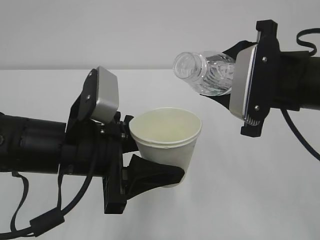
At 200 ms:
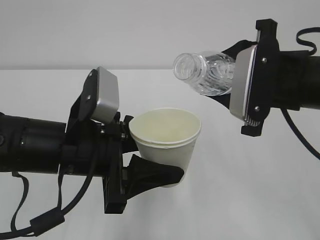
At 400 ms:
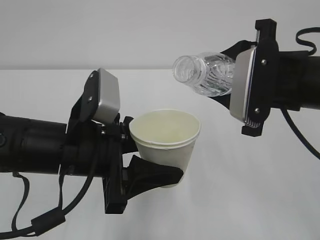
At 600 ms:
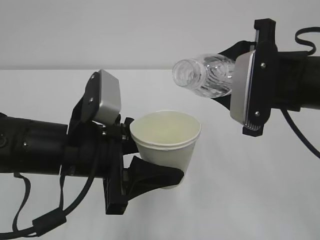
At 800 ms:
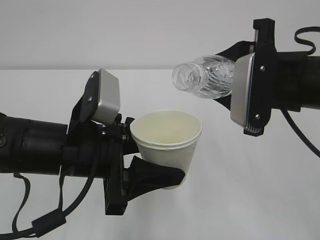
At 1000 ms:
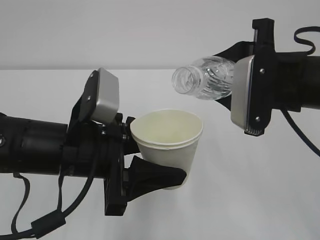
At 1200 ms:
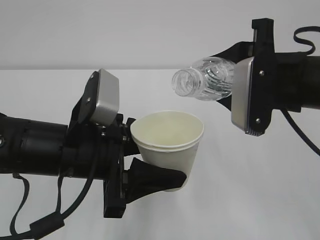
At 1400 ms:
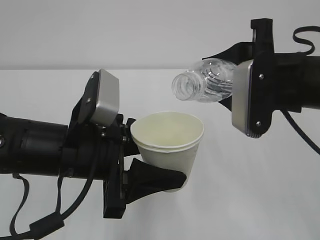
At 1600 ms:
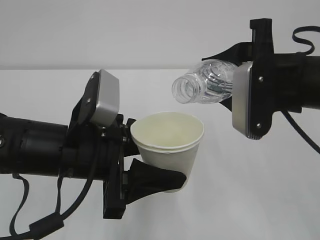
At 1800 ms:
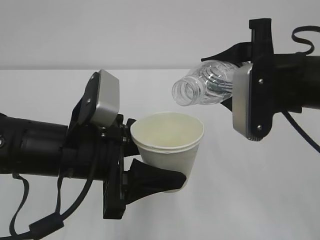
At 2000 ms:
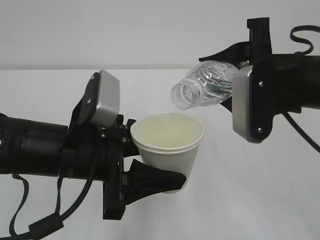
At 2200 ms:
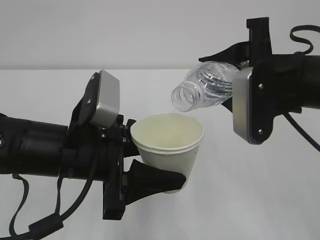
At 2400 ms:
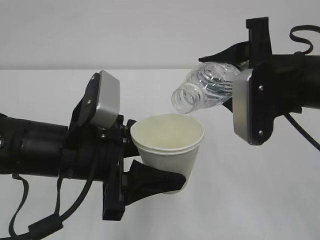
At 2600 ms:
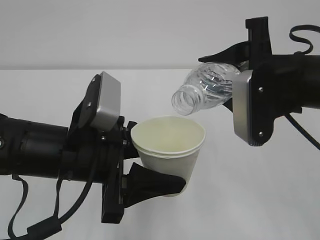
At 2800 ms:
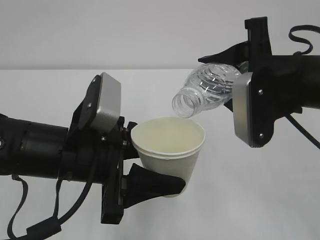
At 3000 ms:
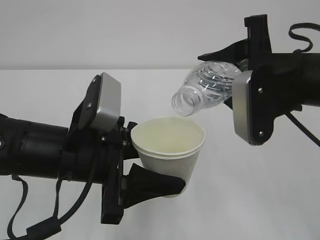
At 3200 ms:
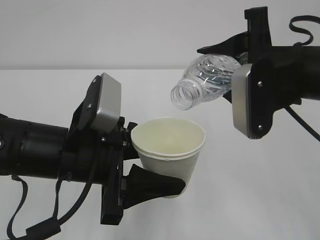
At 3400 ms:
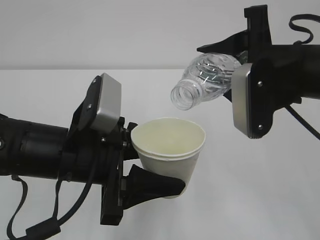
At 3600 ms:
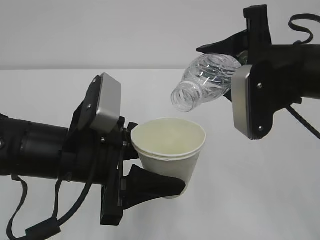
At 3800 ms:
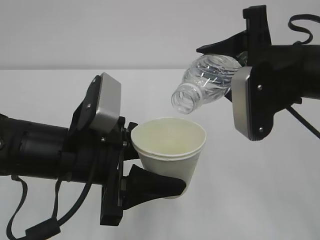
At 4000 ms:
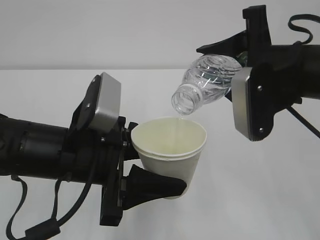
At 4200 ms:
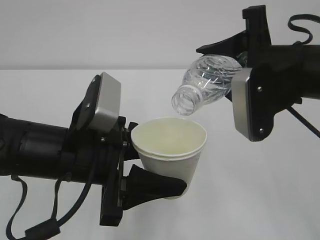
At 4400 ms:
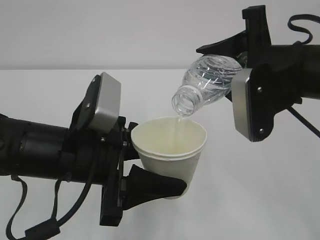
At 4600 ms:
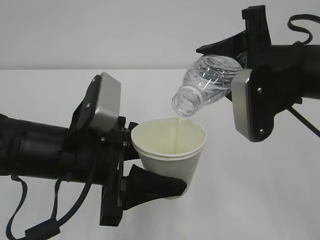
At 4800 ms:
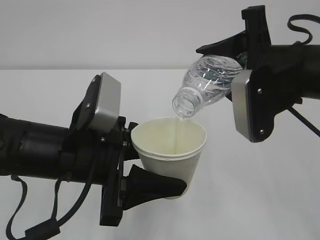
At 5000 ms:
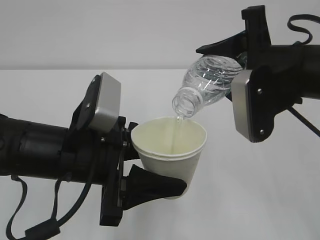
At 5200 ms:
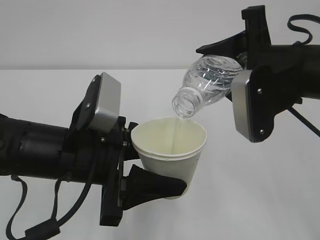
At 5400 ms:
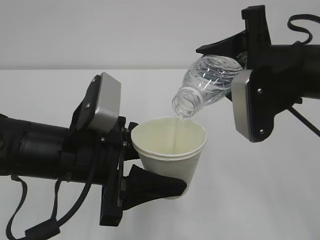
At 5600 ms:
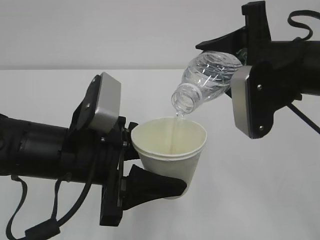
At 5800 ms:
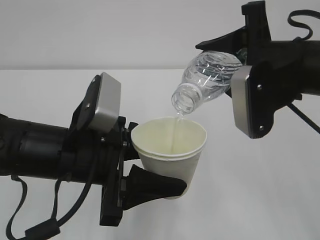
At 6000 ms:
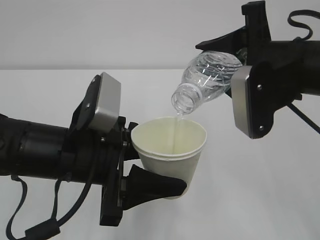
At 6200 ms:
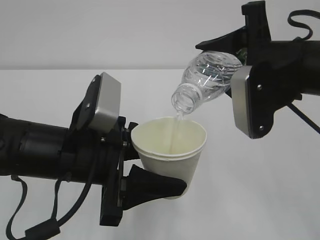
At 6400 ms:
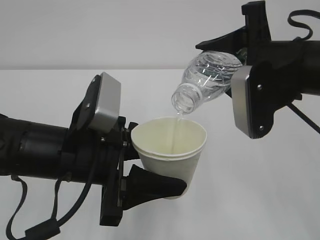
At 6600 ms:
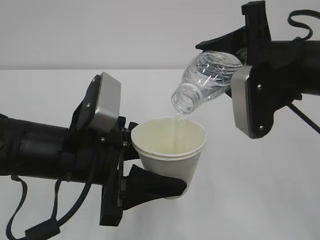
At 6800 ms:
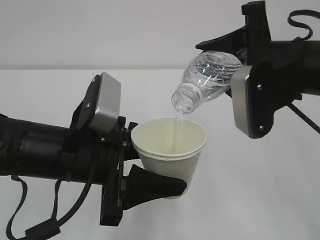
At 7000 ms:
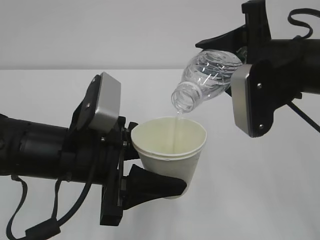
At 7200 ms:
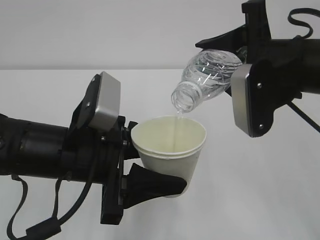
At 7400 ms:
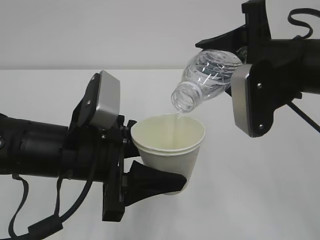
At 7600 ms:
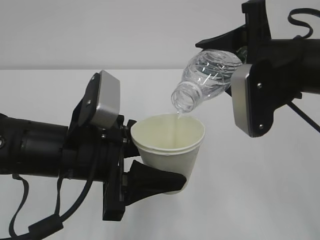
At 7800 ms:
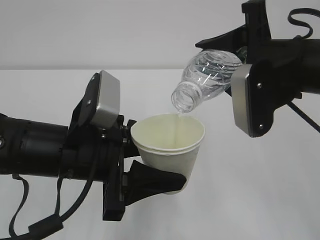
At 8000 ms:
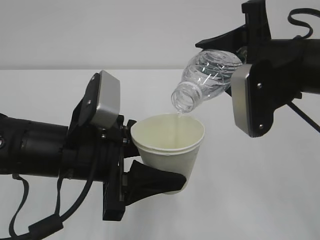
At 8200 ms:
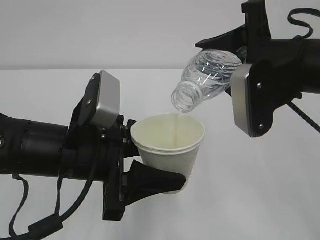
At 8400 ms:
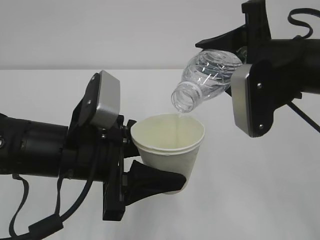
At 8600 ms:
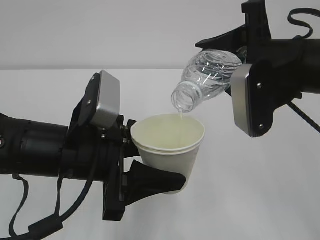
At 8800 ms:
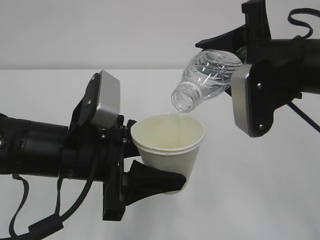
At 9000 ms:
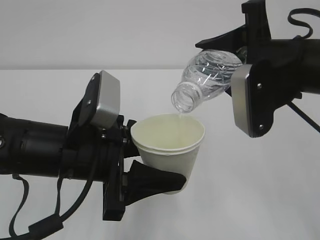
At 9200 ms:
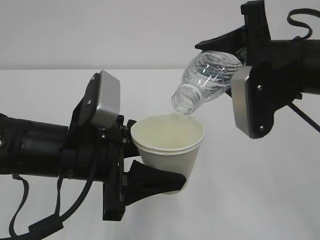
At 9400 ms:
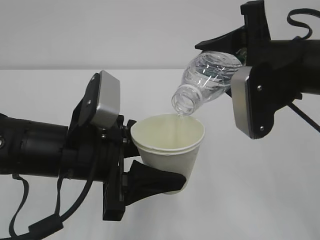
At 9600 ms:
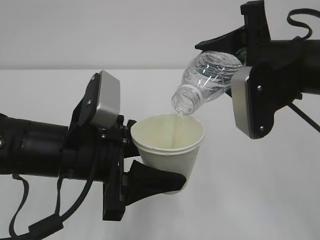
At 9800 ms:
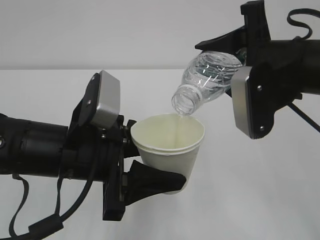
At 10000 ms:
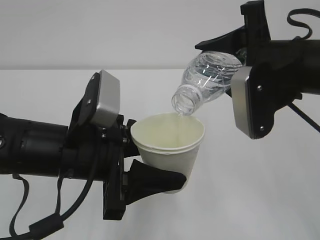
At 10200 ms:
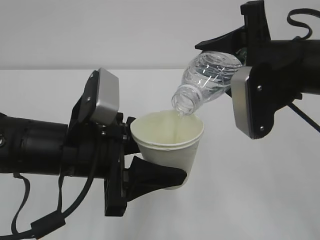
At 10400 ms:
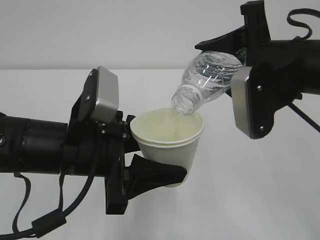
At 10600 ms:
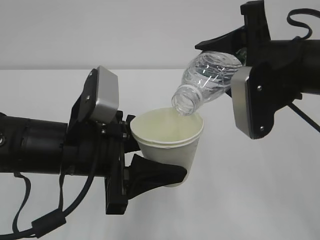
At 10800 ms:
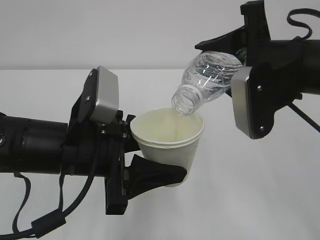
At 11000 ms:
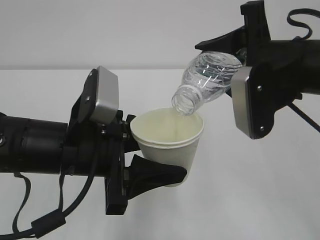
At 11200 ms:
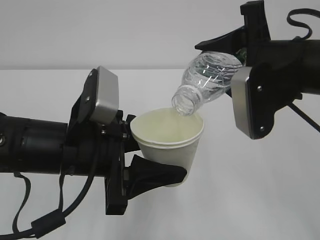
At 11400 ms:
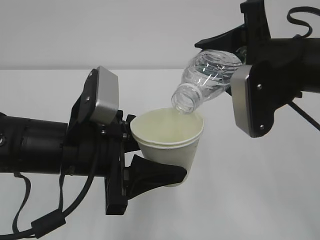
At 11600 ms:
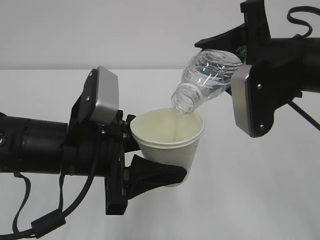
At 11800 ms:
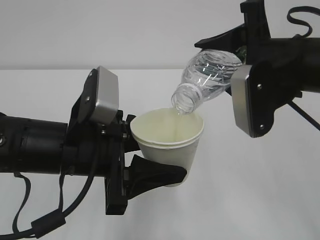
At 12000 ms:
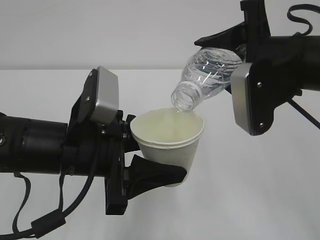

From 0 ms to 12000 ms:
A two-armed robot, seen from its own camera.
From 0 ms to 1600 ms: The grippers make only small movements.
From 1600 ms to 4400 ms: The grippers make only small movements.
From 4400 ms to 12000 ms: Neither gripper changes place.

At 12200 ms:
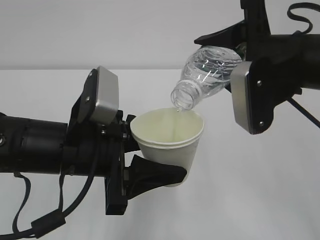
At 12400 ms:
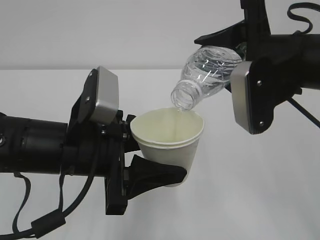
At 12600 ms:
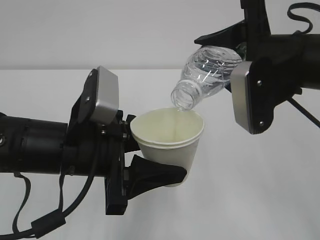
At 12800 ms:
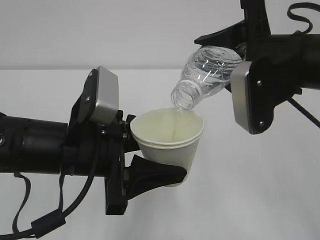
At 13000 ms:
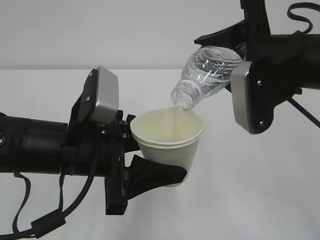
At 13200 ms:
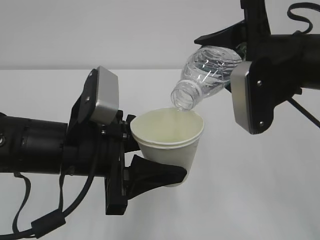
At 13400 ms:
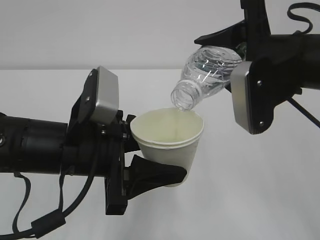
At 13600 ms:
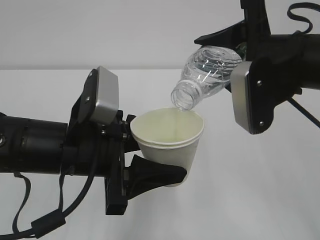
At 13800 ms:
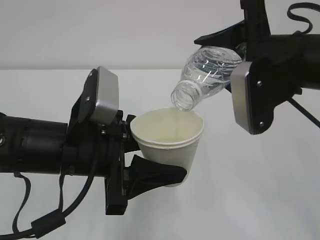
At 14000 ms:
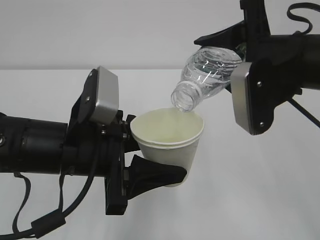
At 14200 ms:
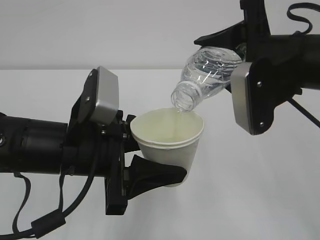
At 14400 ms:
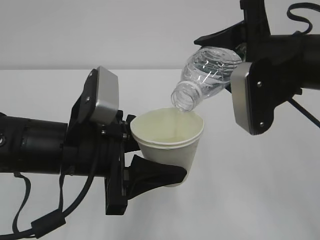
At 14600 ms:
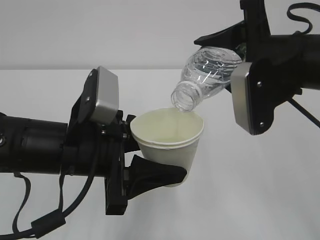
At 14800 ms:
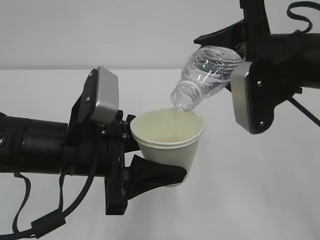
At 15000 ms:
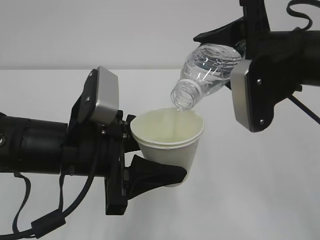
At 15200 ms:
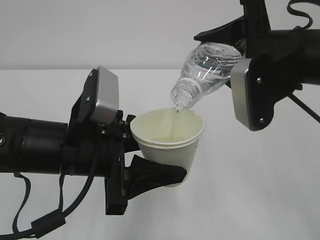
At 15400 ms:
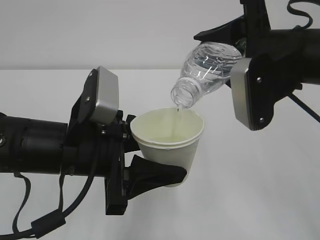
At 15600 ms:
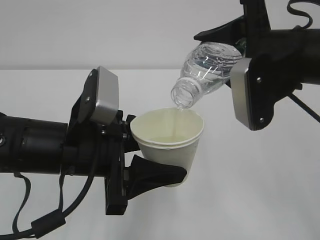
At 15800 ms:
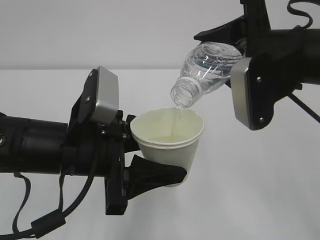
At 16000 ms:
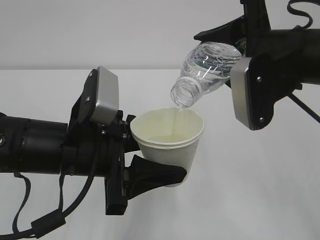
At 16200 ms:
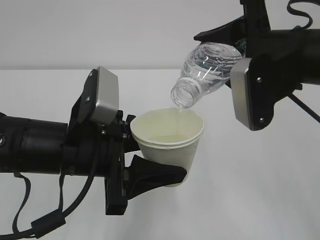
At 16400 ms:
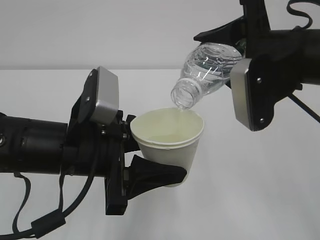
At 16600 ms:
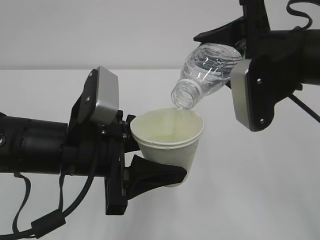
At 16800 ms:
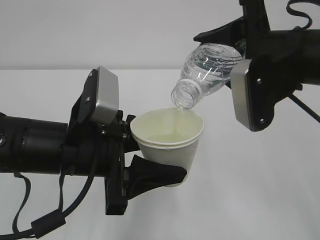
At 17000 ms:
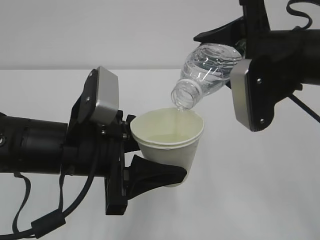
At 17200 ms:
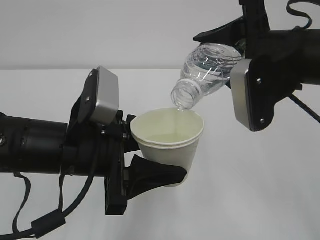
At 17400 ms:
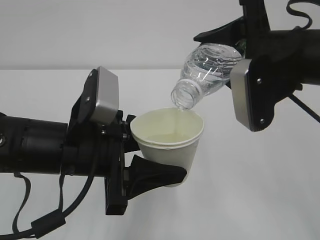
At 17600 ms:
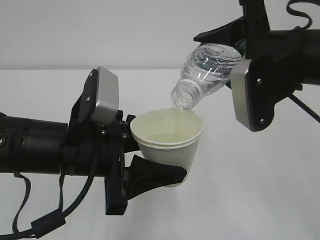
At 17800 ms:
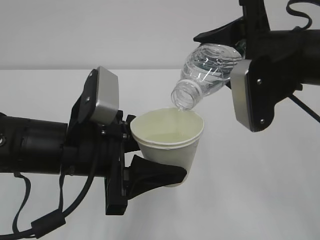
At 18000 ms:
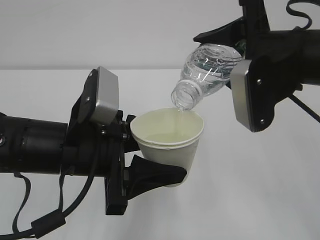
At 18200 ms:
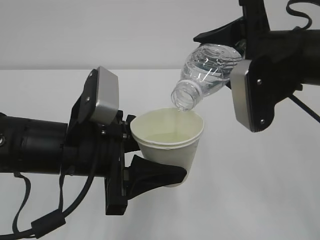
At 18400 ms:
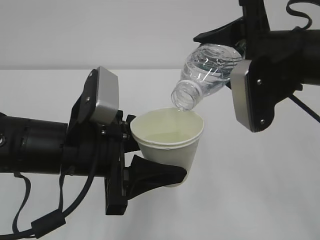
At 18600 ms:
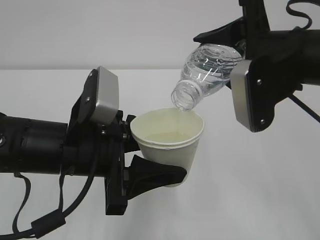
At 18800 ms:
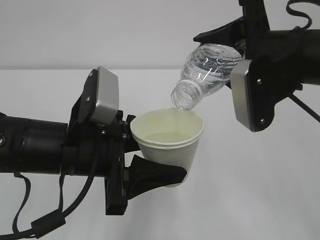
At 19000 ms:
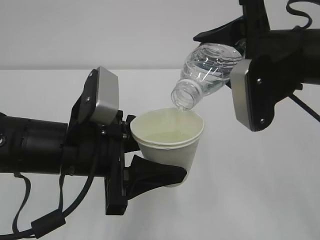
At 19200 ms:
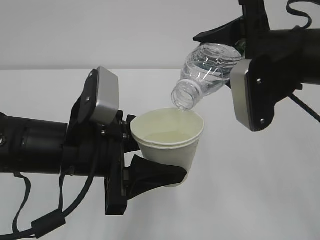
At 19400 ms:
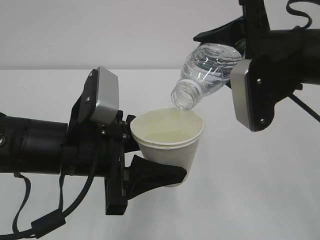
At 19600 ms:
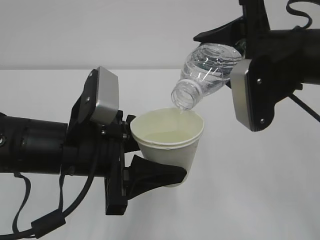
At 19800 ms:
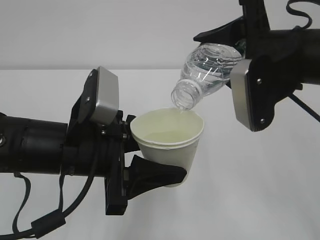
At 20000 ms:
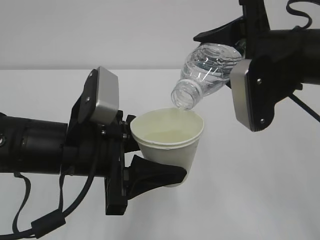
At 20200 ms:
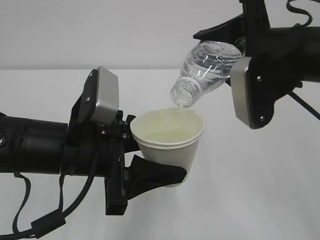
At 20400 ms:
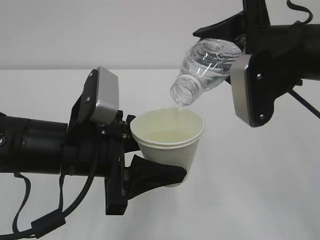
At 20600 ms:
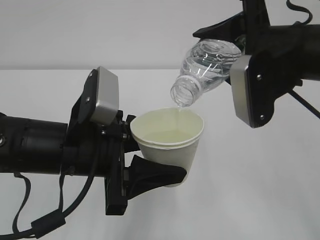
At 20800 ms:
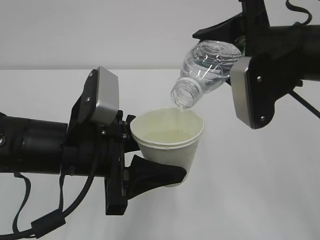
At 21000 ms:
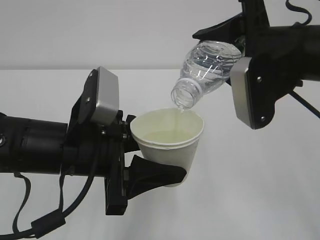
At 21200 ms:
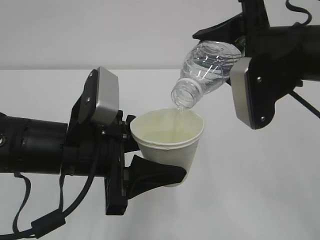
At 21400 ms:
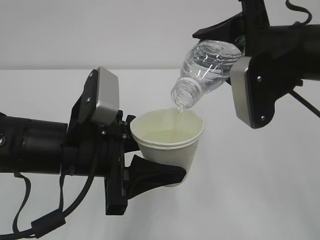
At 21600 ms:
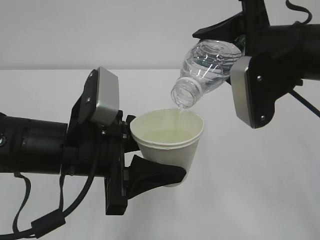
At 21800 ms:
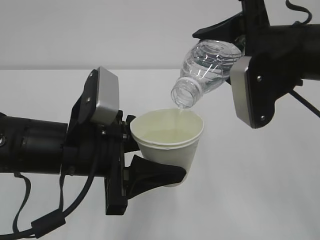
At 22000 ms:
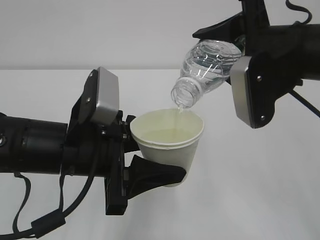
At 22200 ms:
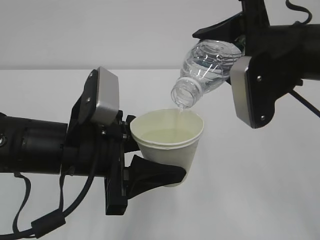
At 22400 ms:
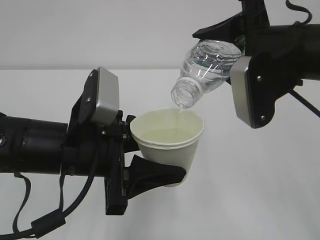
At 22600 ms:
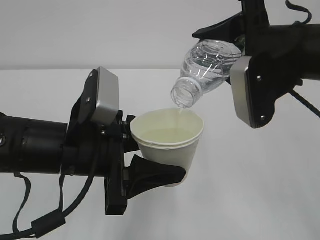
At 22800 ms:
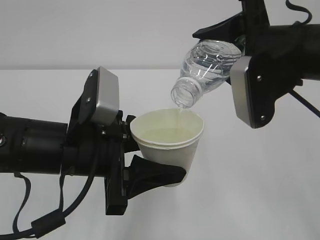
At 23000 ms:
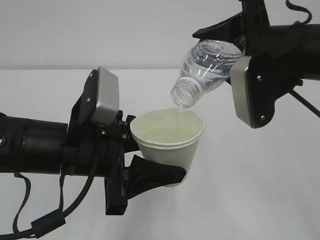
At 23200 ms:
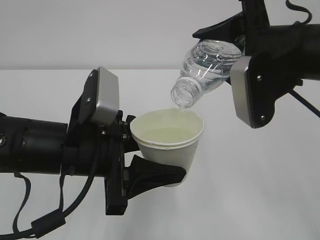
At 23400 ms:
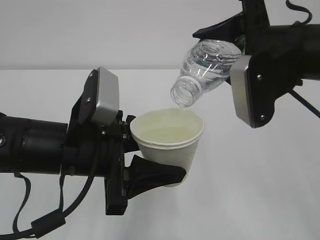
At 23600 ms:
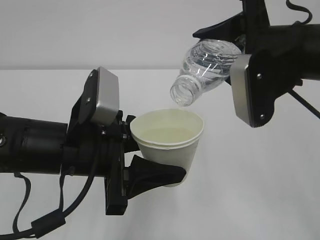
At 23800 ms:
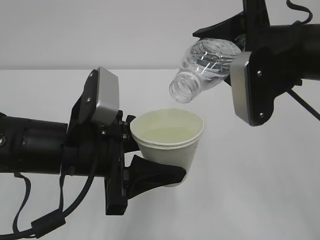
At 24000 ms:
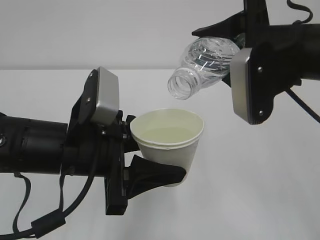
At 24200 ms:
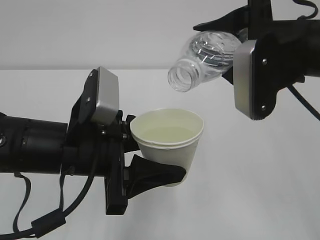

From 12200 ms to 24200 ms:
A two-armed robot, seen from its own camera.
From 12200 ms to 22600 ms: Both grippers stay about where they are.
From 22600 ms to 24200 ms: The grippers move only a little.
